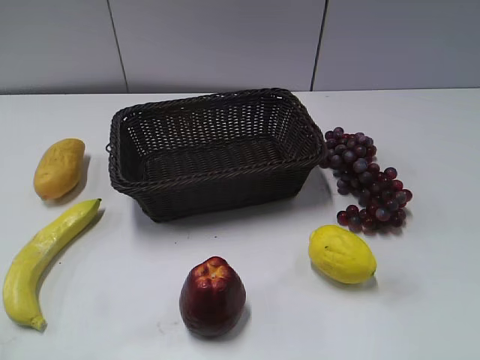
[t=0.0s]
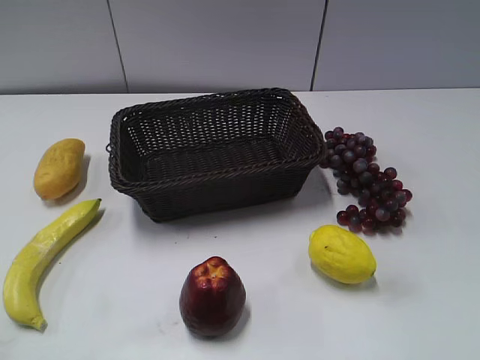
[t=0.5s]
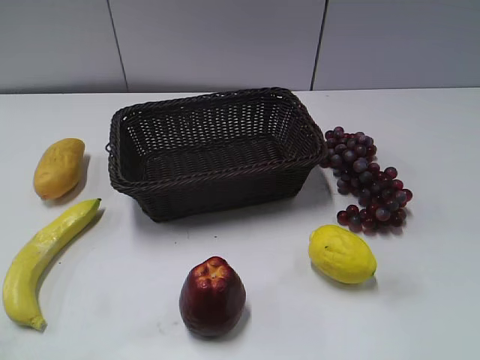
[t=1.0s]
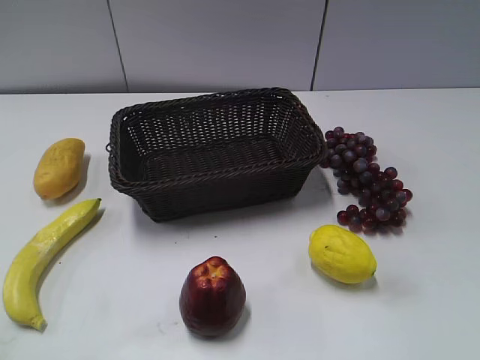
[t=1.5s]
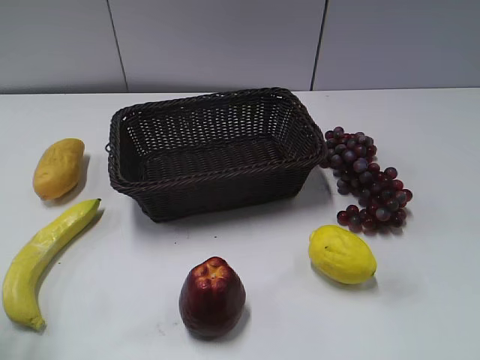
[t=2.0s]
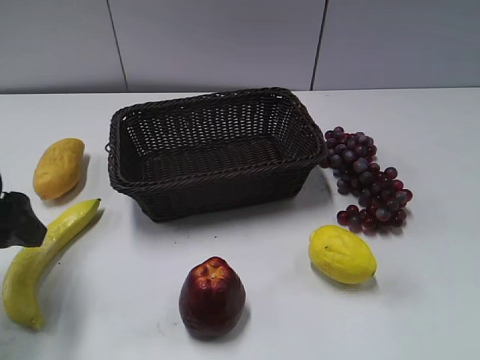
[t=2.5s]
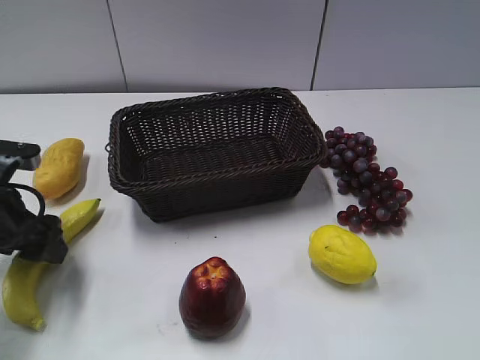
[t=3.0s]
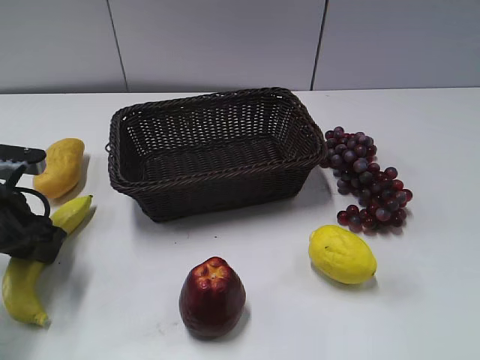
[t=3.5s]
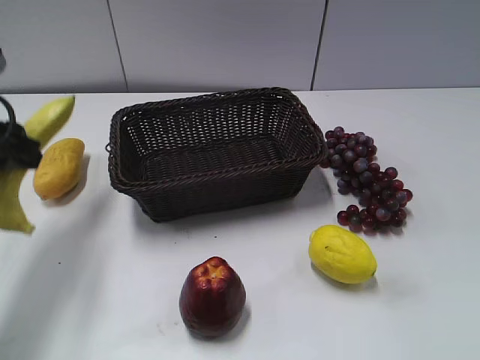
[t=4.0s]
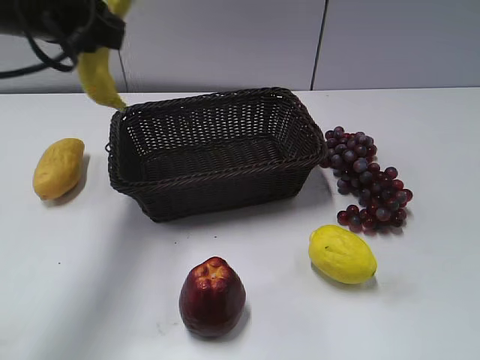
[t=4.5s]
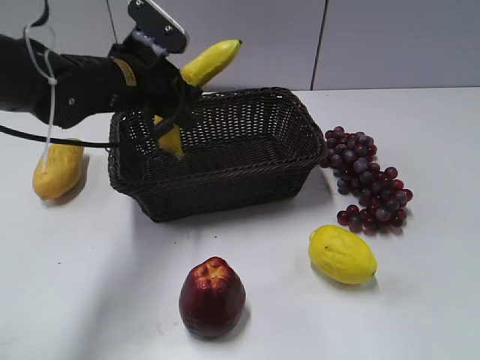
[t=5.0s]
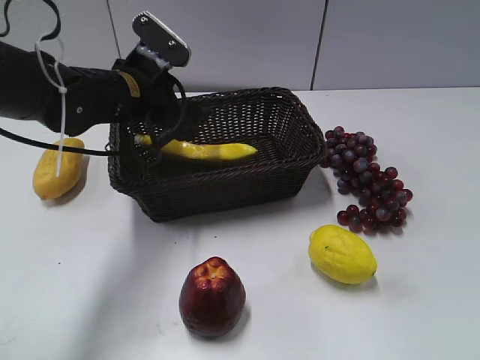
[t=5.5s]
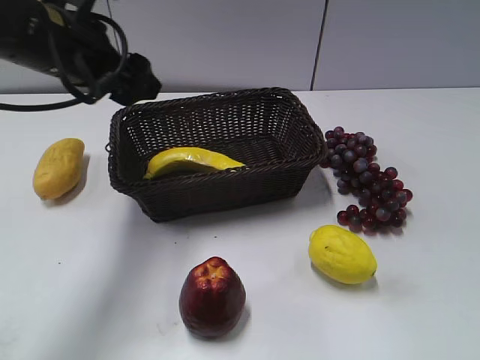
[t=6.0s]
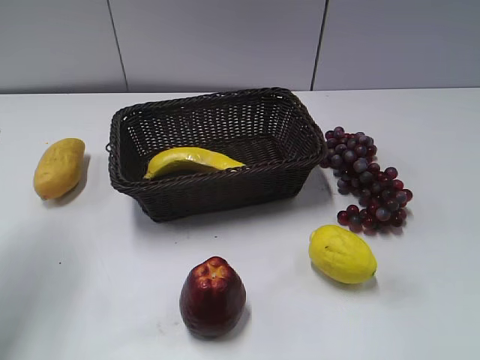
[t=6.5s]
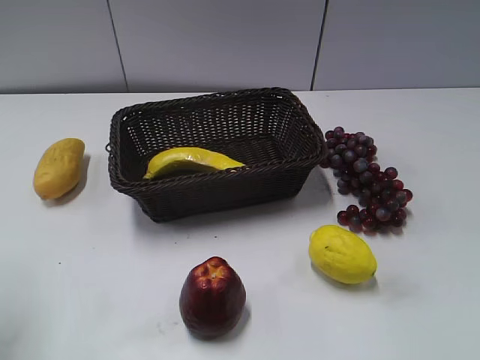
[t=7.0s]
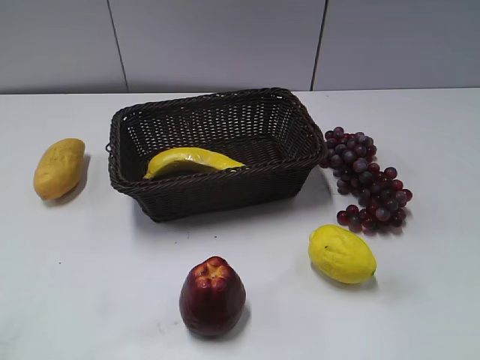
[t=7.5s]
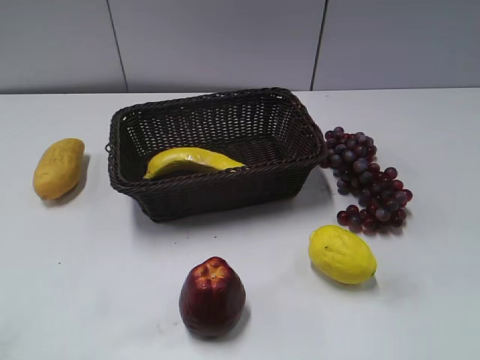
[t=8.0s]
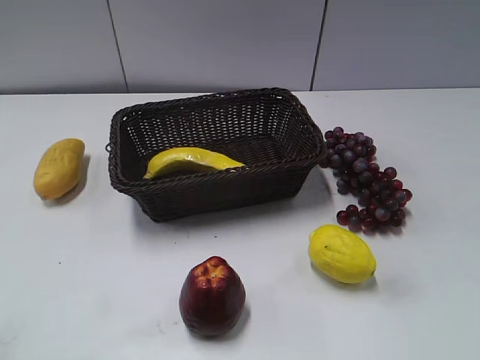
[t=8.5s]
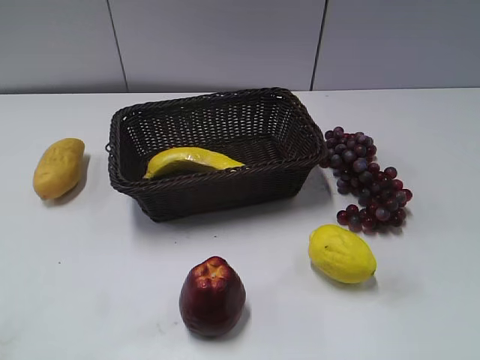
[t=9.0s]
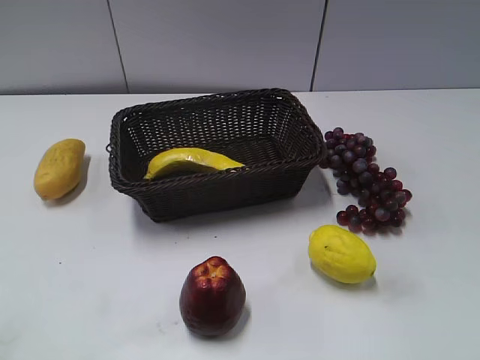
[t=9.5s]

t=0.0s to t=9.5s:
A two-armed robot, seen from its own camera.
Step, t=2.5s to t=3.5s: Grasp the banana with left gripper.
Step, t=4.0s to t=5.5s: Place the banana in the basket with left gripper.
t=2.0s to t=4.0s: The left gripper shifts approximately 15 cm forward, moves approximately 15 cm downward and comes back, and closes.
t=4.0s to t=5.5s: The left gripper goes roughly 20 cm to the right, forward and downward, and opens up.
t=5.5s to t=7.5s: The left gripper is displaced backward and to the left by roughly 40 cm.
